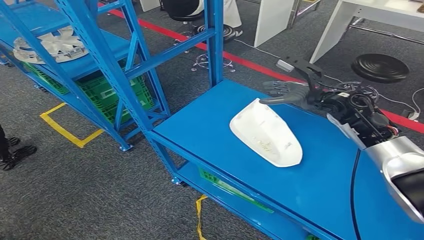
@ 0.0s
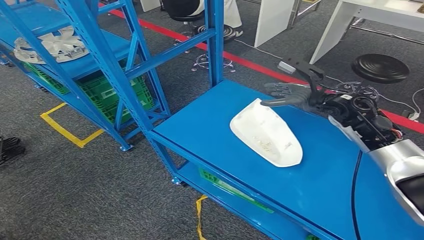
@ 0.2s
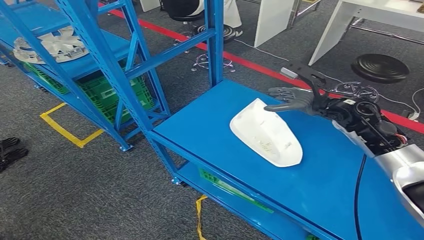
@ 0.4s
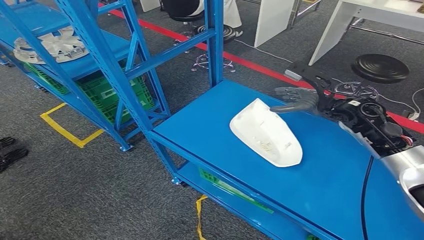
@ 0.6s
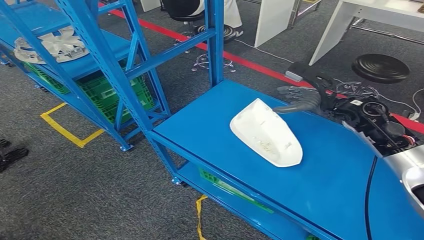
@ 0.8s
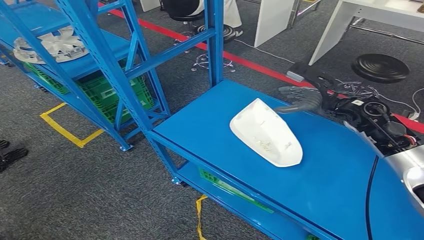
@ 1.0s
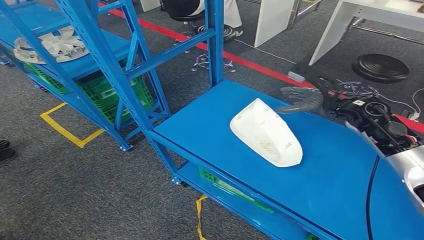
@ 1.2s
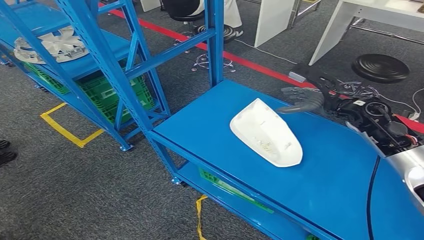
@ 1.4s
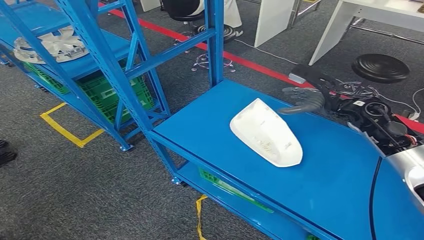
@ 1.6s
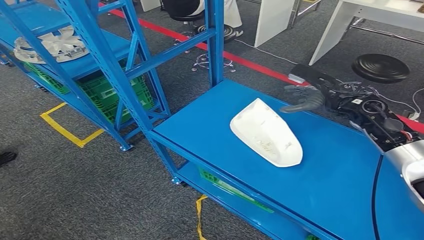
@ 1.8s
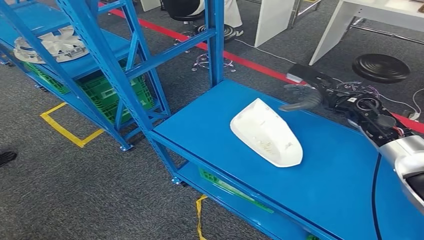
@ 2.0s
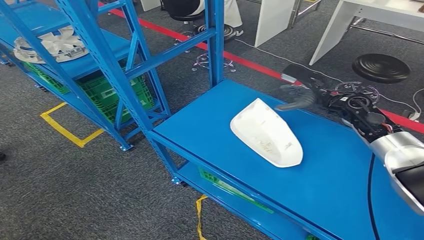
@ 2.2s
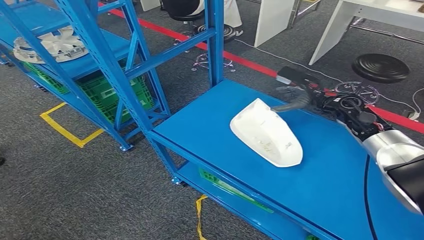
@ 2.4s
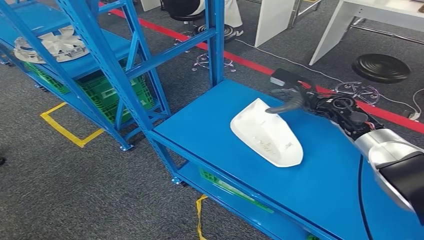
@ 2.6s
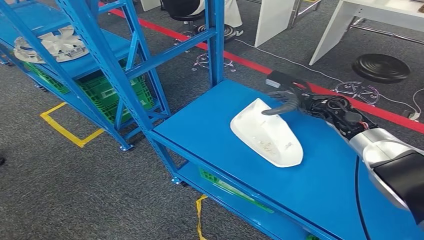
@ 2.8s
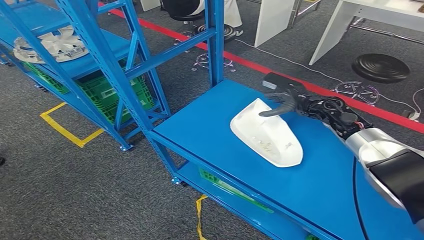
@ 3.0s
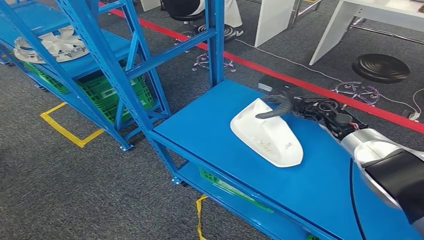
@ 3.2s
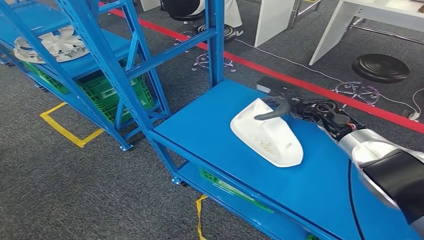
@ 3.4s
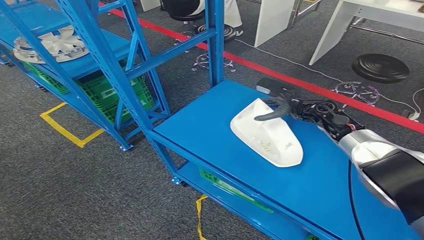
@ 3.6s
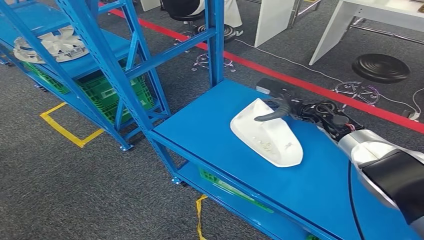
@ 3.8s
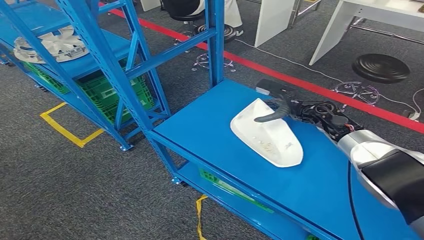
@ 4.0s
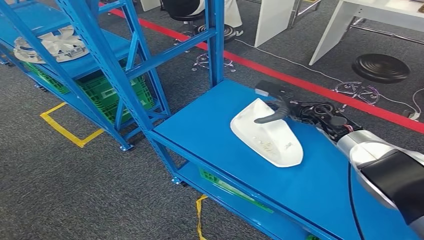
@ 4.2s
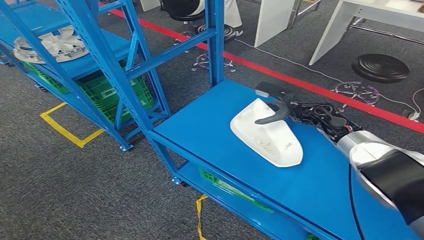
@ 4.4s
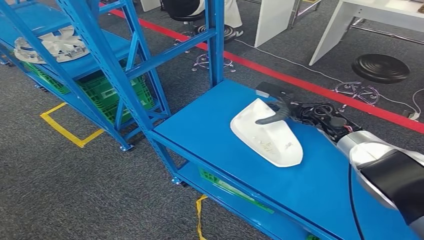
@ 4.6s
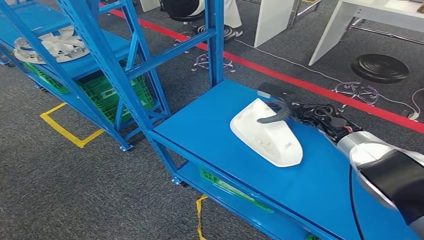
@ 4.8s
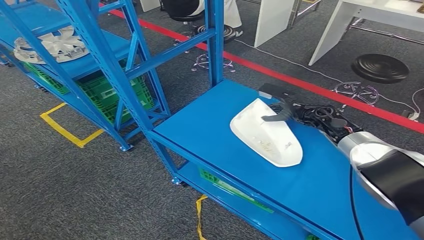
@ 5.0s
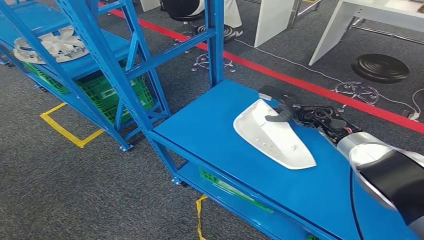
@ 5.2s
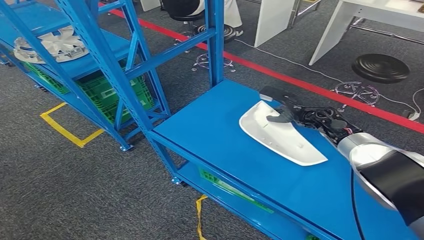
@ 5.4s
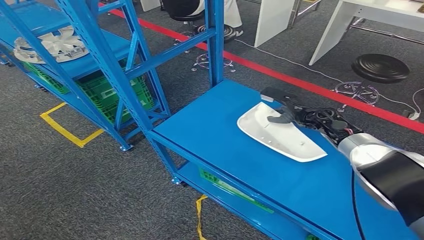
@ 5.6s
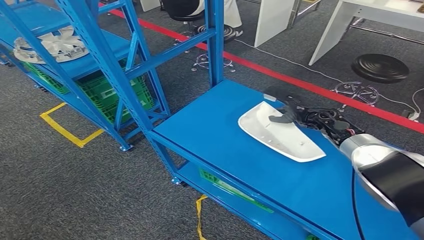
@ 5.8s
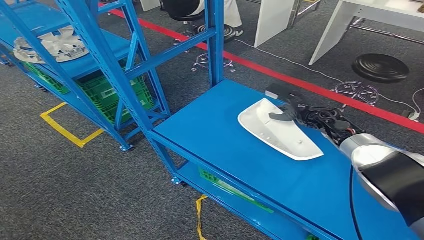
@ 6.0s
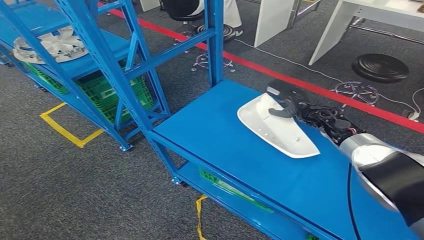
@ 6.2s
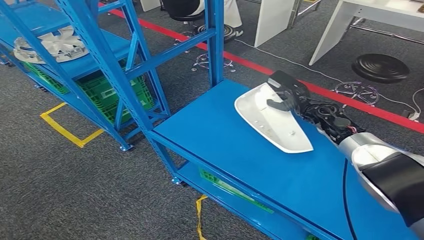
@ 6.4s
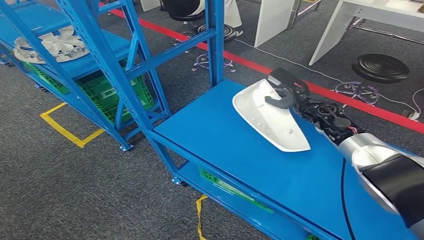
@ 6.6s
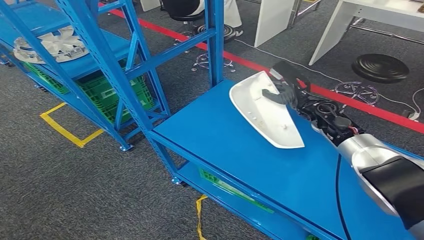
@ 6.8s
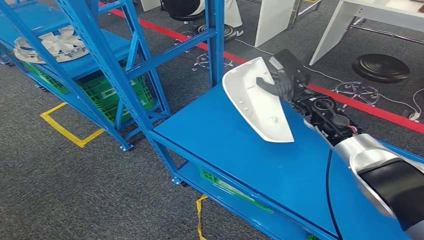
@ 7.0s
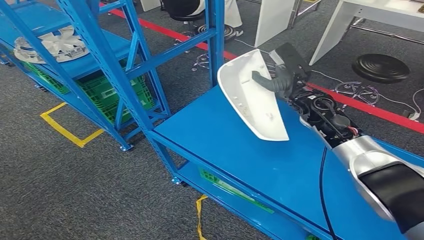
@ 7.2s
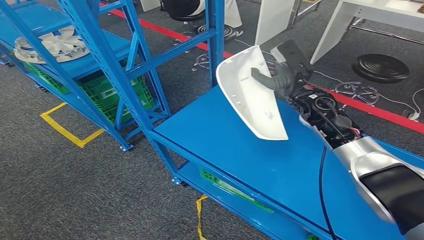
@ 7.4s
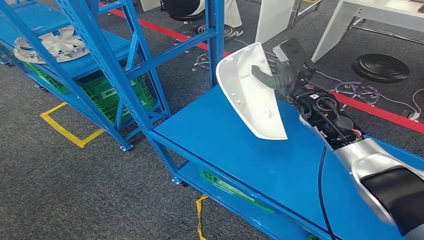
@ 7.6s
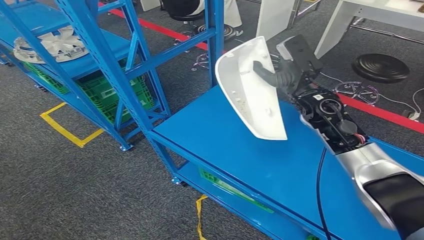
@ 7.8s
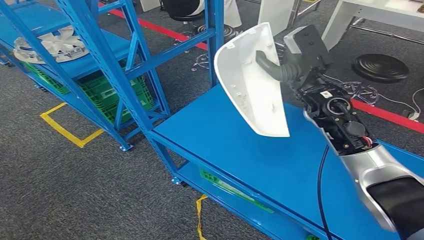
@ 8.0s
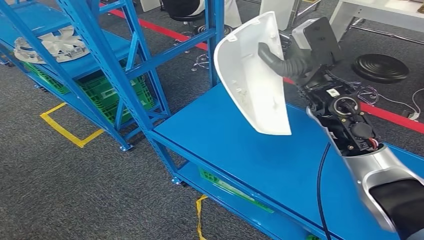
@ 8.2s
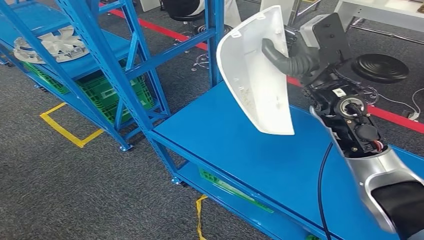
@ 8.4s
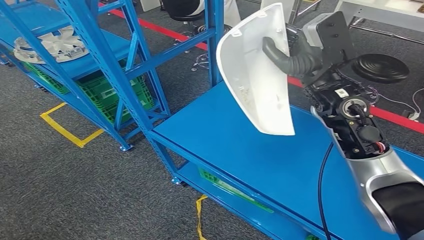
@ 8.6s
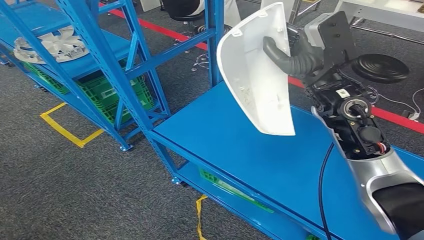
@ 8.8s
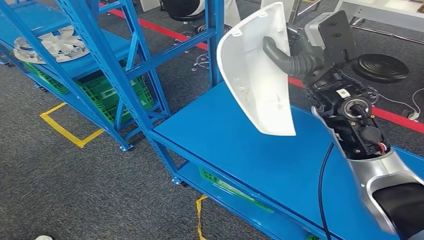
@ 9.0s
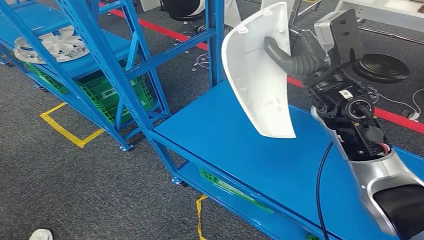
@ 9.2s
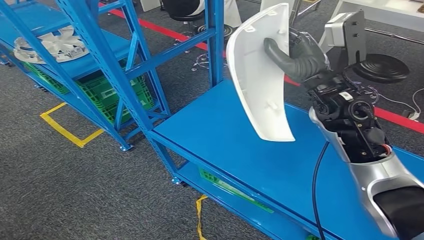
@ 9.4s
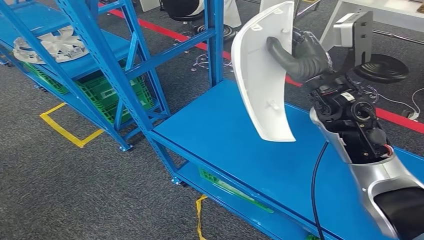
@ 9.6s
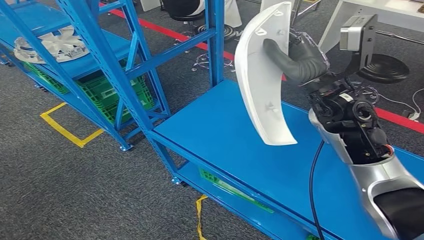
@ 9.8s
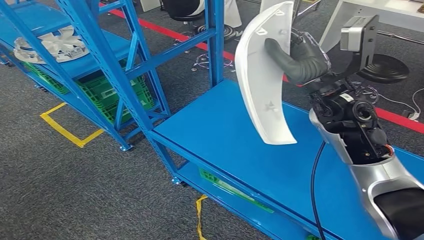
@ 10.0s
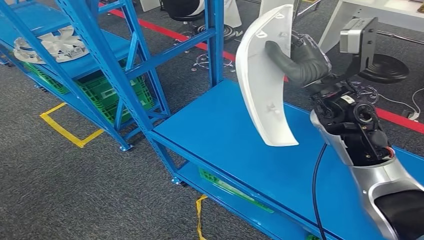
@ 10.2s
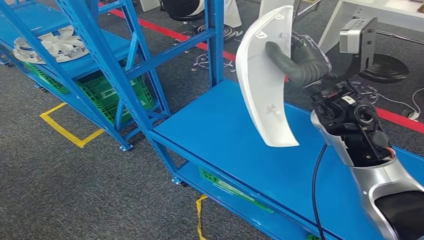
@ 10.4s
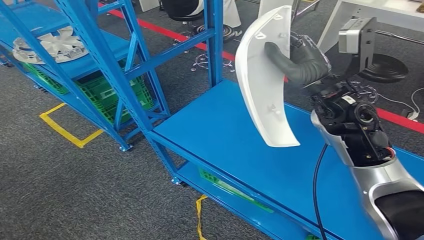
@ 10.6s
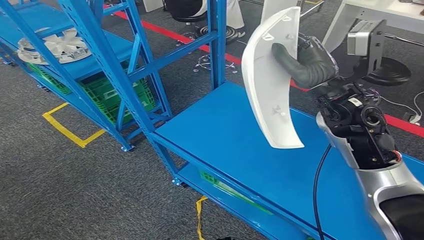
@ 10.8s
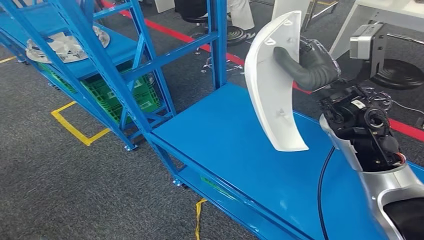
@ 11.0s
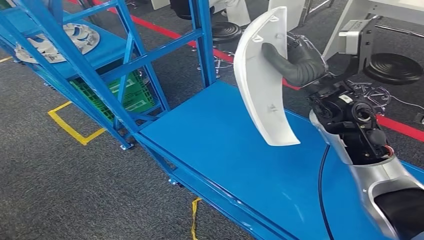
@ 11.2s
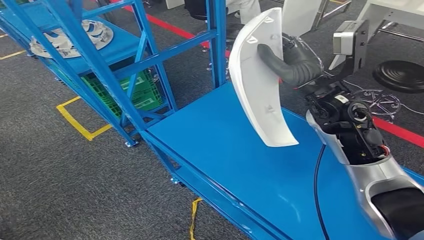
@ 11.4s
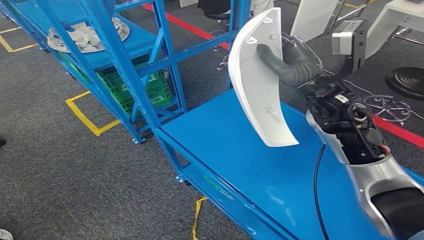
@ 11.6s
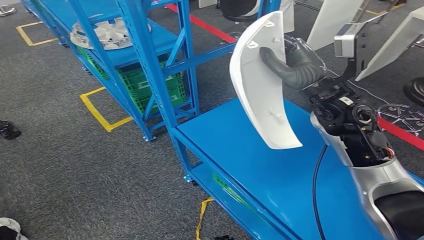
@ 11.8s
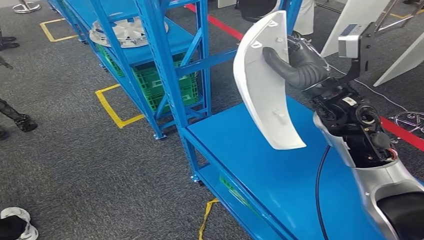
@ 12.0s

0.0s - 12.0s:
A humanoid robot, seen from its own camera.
Step, 0.0s - 7.6s: Pick up the small component from the shelf.
0.0s - 1.6s: There are only small adjustments of the hands.
1.6s - 3.0s: The right hand goes about 5 cm forward.
3.0s - 6.0s: There are only small adjustments of the hands.
6.0s - 7.6s: The right hand goes roughly 10 cm upward and to the left.
7.6s - 9.0s: The right hand travels upward and backward by some 10 cm.

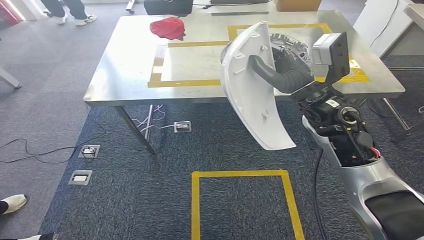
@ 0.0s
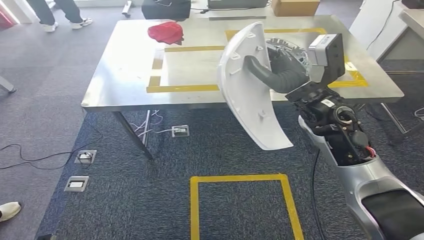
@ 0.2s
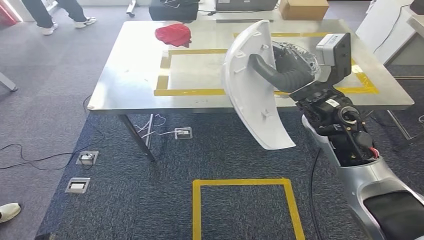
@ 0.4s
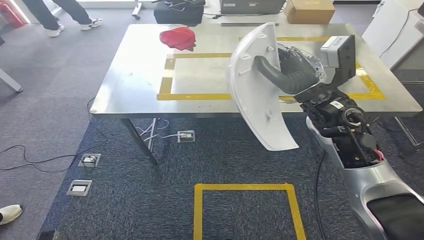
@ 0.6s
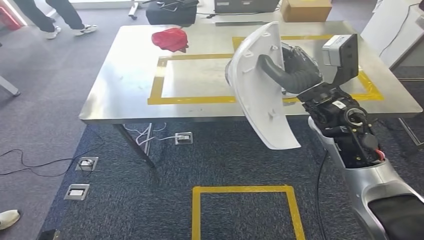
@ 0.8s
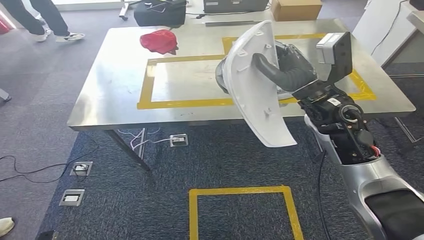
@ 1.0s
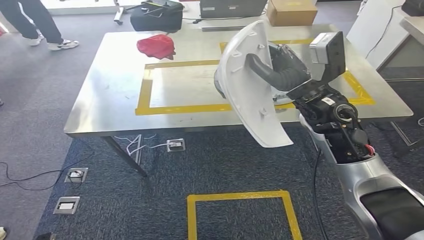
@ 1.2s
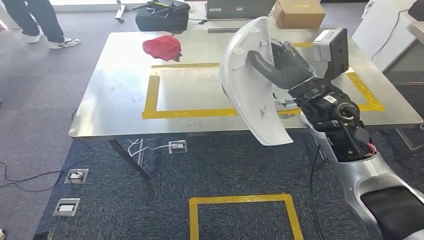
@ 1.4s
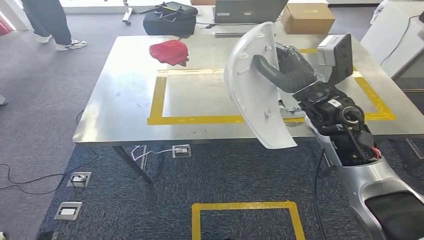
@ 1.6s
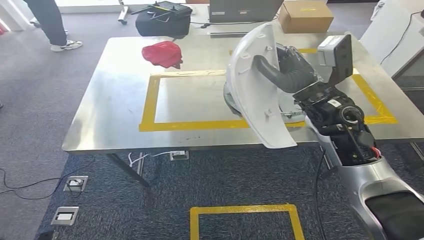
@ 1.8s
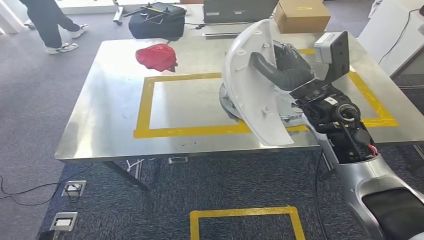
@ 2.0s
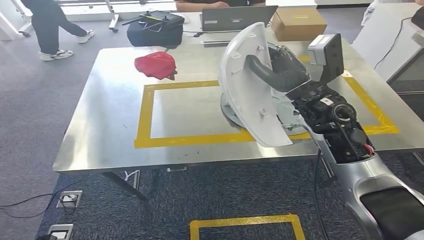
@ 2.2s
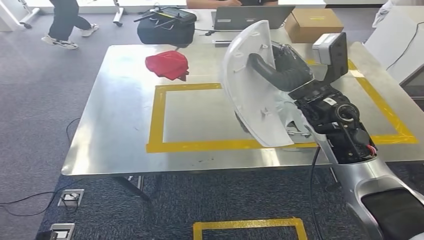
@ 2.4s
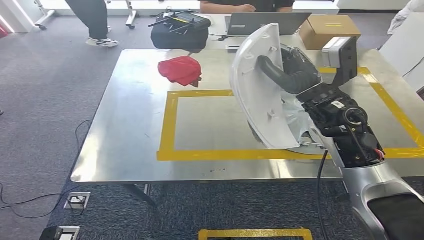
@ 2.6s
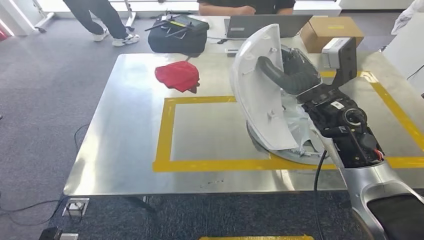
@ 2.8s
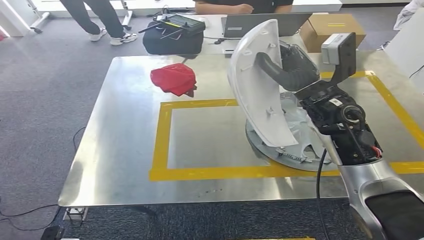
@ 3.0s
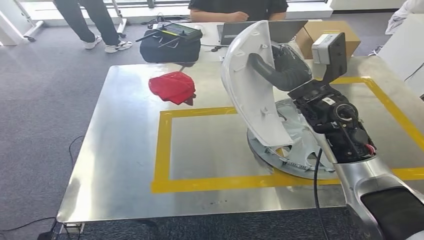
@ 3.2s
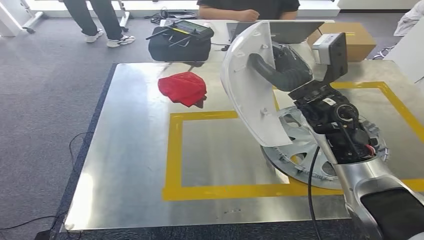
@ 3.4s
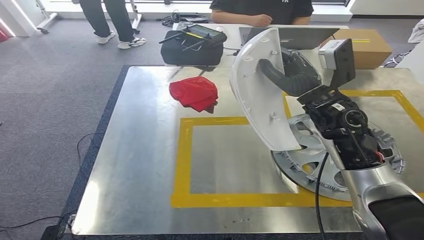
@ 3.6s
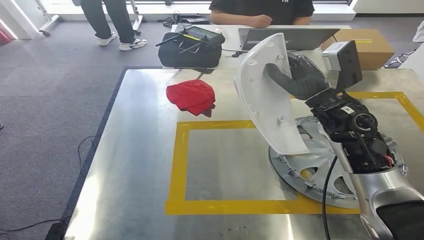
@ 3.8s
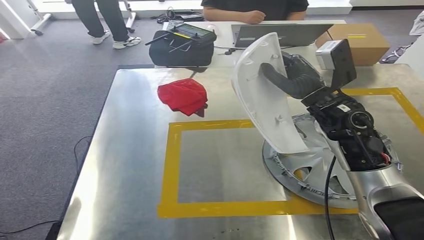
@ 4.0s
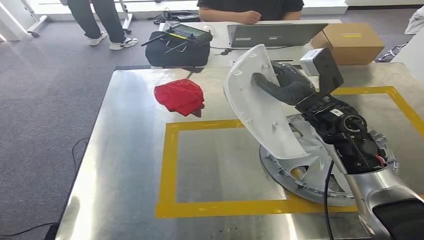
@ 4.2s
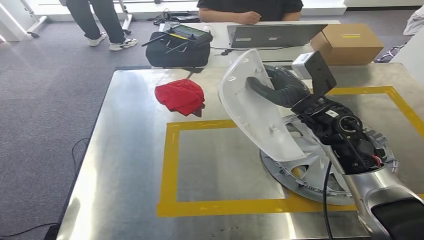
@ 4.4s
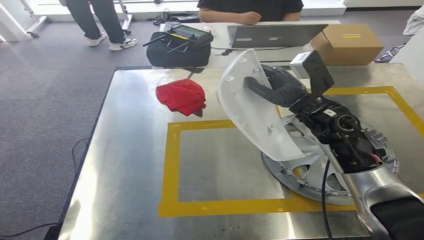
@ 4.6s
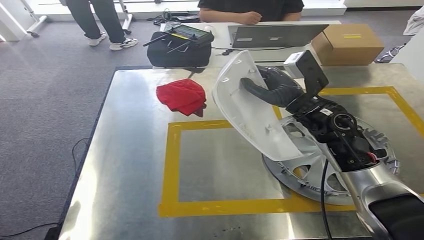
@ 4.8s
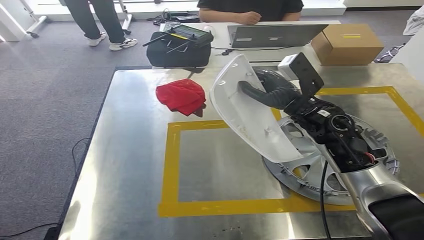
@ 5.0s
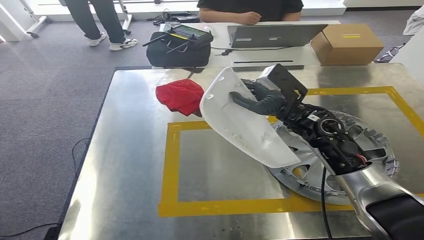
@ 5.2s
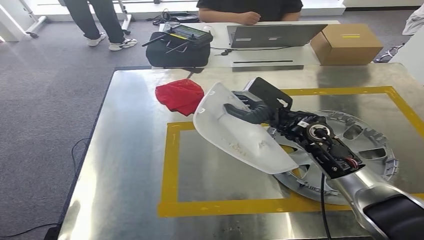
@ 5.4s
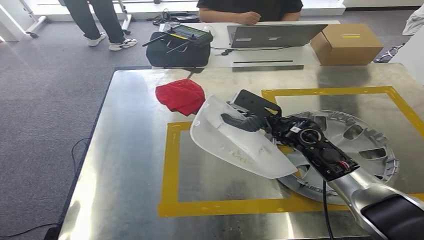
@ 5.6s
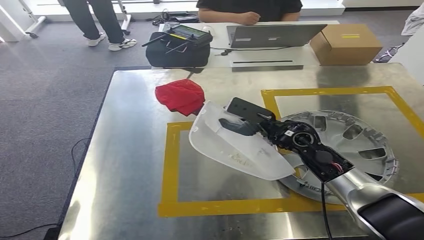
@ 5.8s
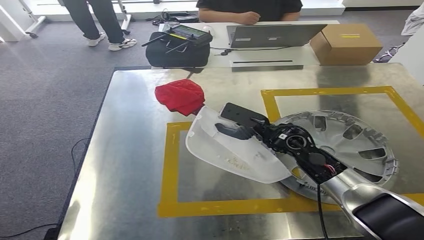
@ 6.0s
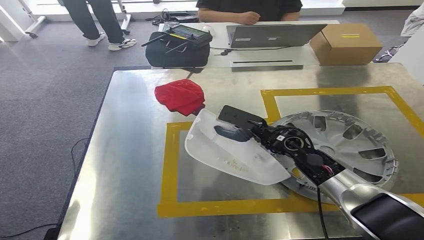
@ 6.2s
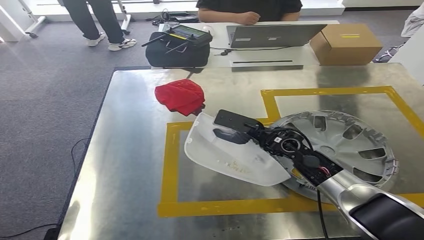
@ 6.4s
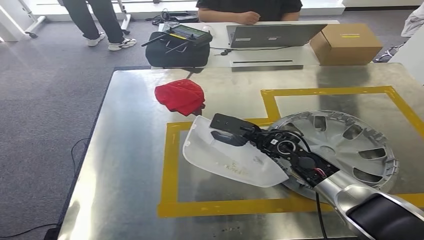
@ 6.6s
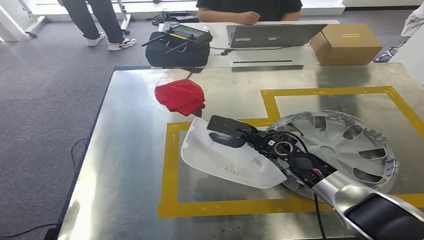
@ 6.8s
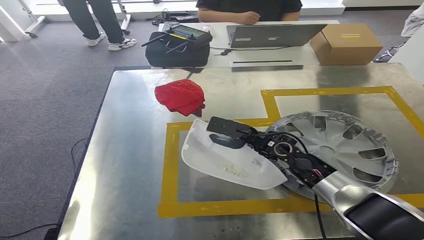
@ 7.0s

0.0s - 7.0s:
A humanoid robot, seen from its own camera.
Step, 0.0s - 3.8s: Move the small component to the workbench.
5.6s - 7.0s: The right hand moves downward, some 5 cm.
